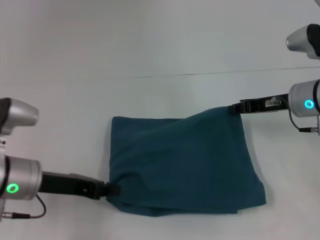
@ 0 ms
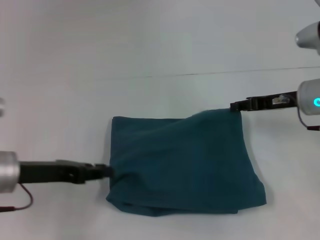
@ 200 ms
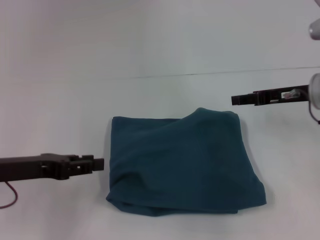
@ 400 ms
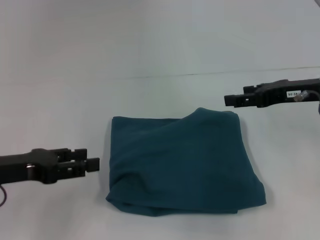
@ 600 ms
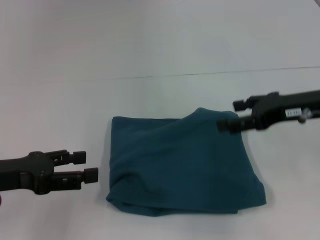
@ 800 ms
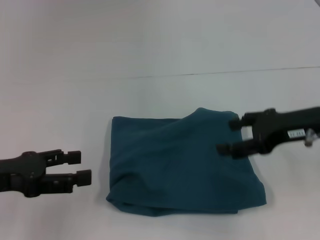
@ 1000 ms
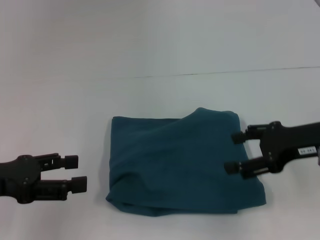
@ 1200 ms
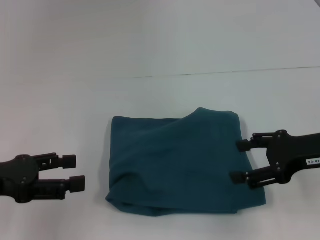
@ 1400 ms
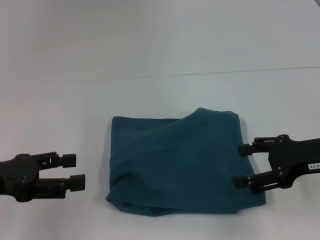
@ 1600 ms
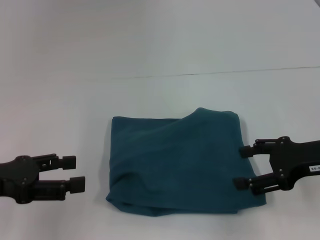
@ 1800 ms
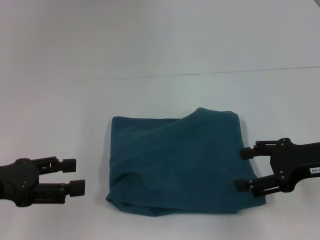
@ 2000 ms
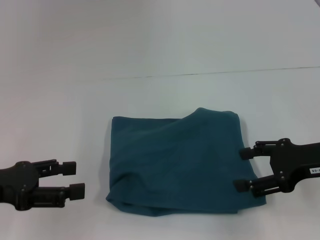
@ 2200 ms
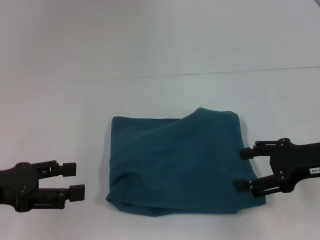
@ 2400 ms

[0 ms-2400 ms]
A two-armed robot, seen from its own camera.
0 ms to 1200 ms: The left gripper is displaced to the left by about 10 cm, and opens up. Meanwhile the right gripper is displaced backward by roughly 10 cm, and opens up.
1200 ms to 2400 ms: There are only small adjustments of the grippers.

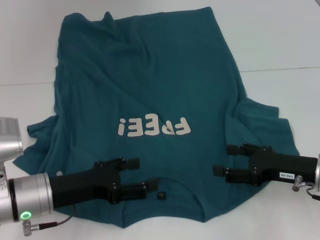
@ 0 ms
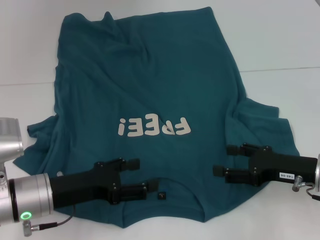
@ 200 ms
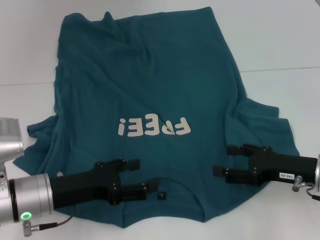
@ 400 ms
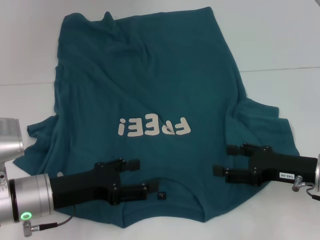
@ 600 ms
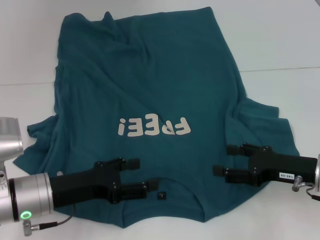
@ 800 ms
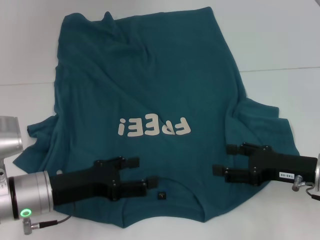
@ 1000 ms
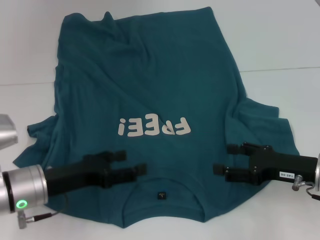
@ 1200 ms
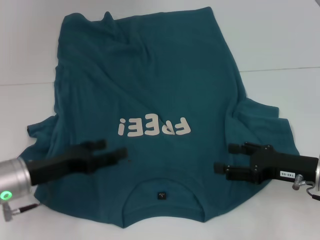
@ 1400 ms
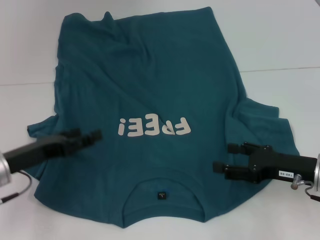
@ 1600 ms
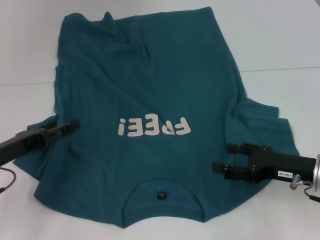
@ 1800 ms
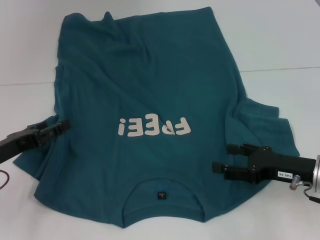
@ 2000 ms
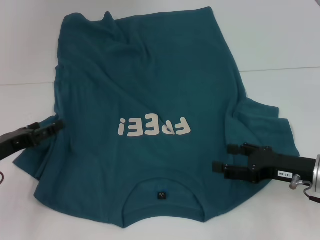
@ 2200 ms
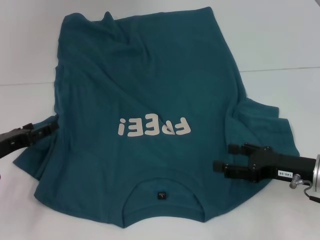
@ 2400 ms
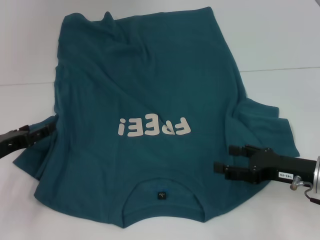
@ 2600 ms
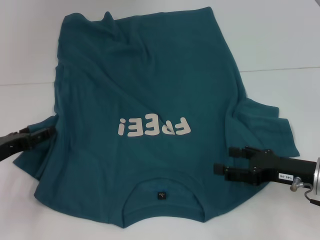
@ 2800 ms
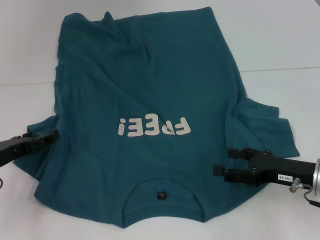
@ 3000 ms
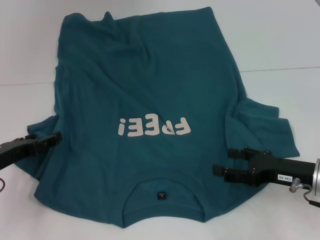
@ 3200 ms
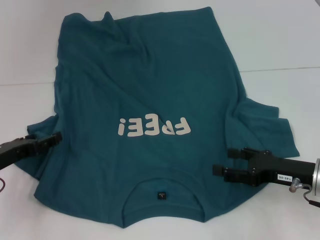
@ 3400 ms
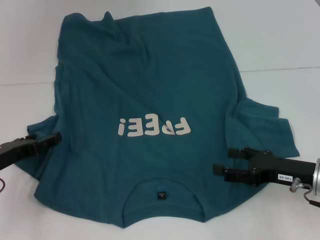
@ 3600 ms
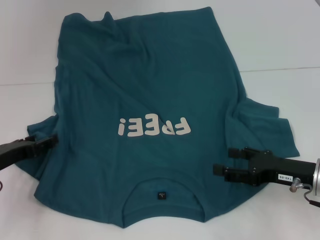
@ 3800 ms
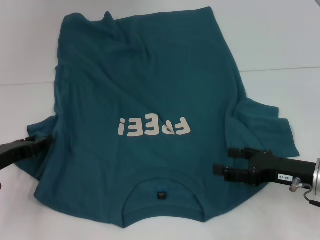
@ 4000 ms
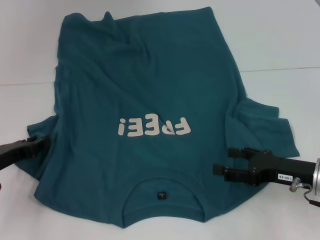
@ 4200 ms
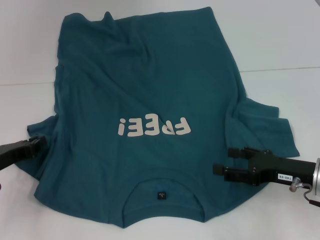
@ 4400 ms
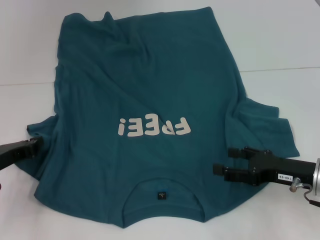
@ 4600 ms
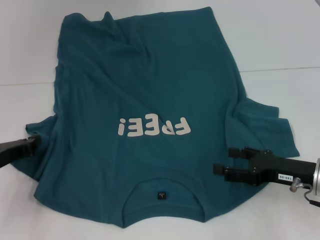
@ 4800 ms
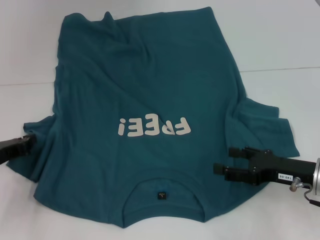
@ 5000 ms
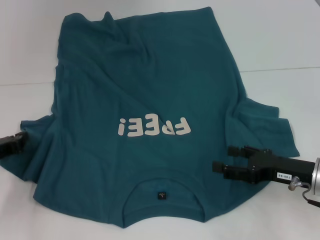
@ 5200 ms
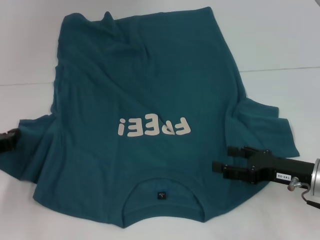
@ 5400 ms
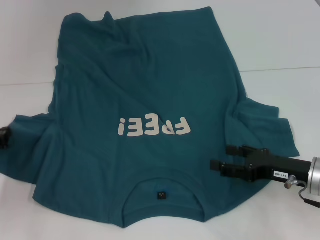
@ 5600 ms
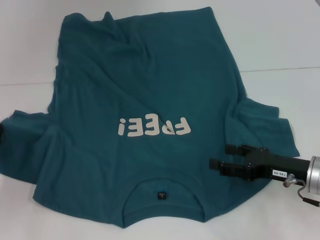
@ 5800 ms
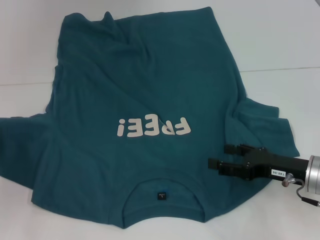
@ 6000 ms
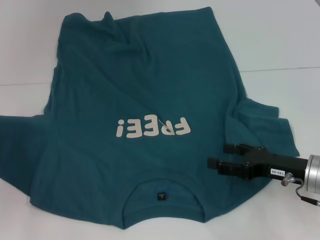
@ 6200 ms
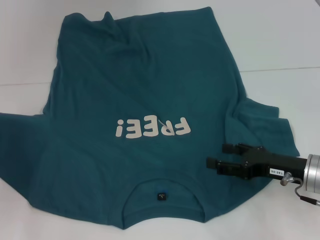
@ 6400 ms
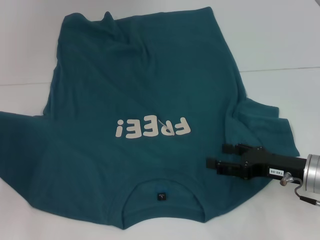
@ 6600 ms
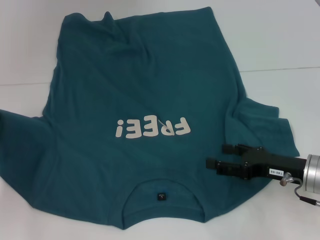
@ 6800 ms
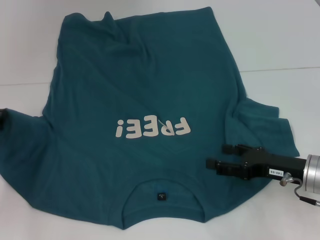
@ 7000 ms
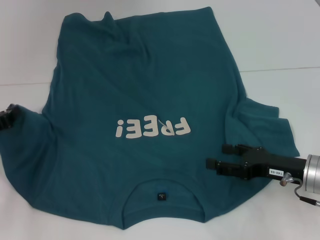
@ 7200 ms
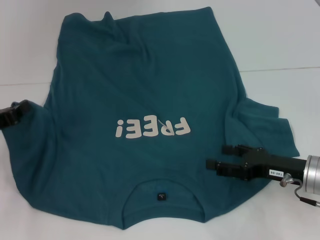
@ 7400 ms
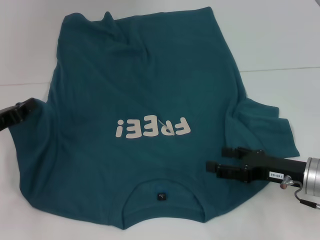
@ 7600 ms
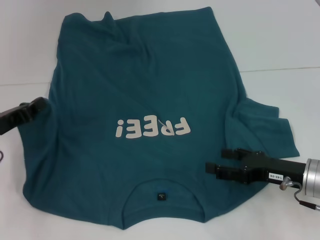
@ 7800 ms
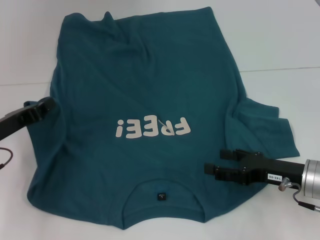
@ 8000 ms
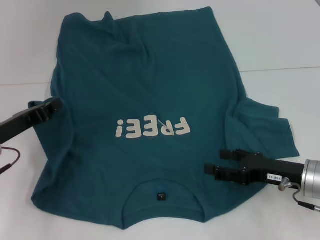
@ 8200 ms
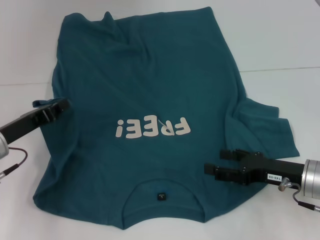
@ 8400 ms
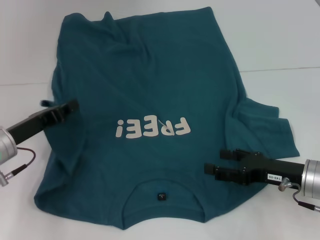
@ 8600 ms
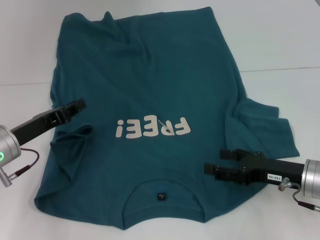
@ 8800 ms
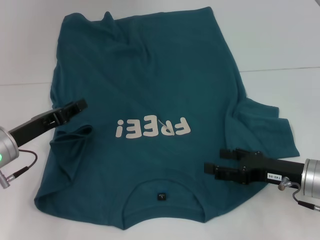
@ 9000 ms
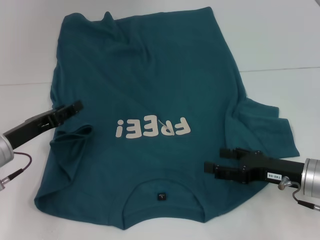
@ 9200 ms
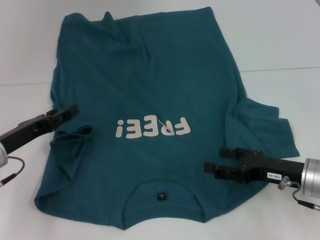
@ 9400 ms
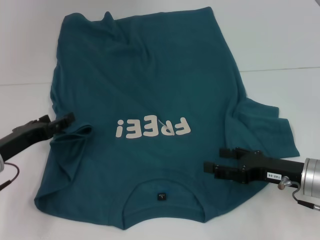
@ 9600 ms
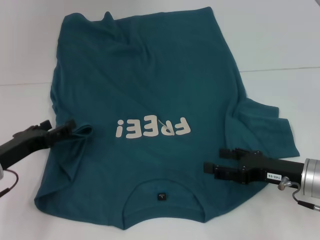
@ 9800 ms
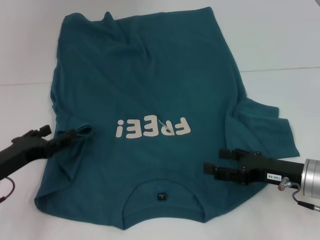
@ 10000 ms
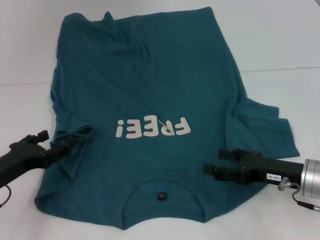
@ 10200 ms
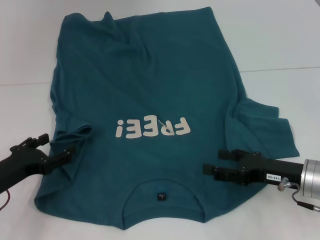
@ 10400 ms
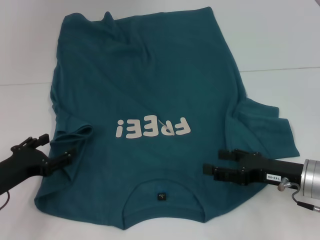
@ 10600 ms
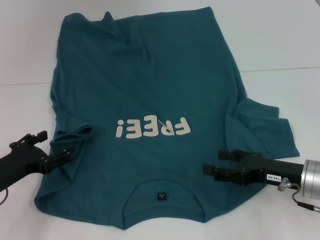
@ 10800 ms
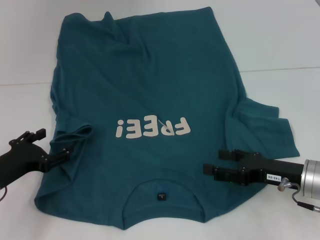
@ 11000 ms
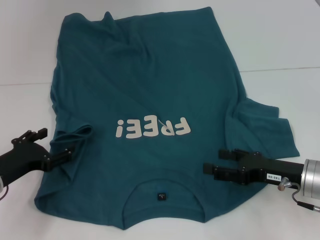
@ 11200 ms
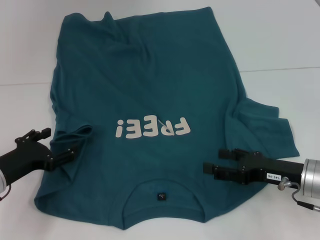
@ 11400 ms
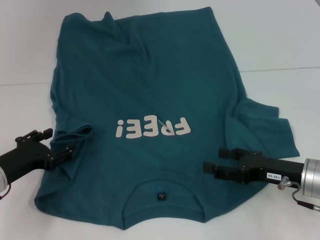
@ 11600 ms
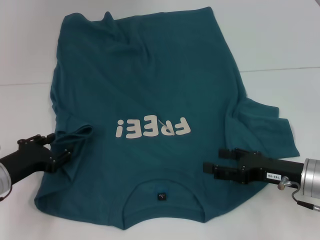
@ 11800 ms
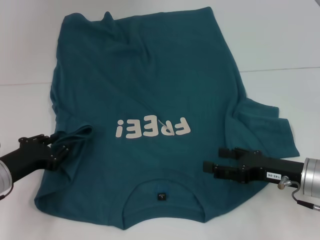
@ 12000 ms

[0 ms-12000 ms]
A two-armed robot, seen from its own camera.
0 ms to 1600 ms: The left gripper heads to the left, covering roughly 5 cm.
3000 ms to 4400 ms: The left gripper closes.
4400 ms to 6000 ms: The left gripper moves approximately 5 cm, and closes.
7600 ms to 9000 ms: The left gripper goes some 5 cm to the right.
9000 ms to 10400 ms: The left gripper shifts some 5 cm backward, and opens.
10400 ms to 12000 ms: The left gripper closes up.

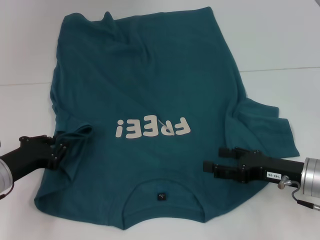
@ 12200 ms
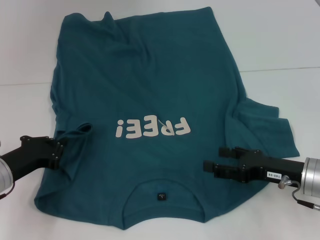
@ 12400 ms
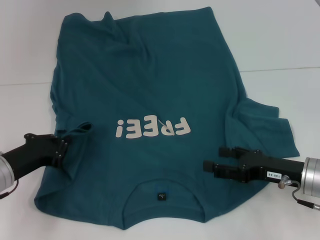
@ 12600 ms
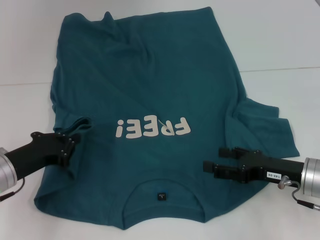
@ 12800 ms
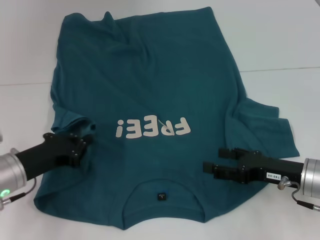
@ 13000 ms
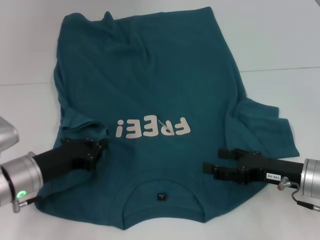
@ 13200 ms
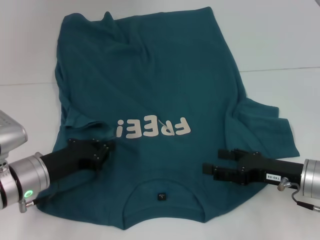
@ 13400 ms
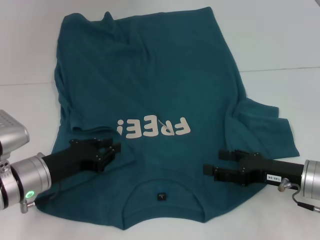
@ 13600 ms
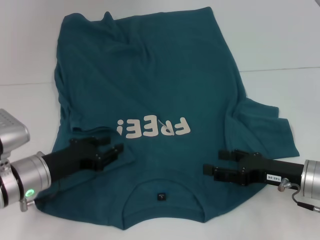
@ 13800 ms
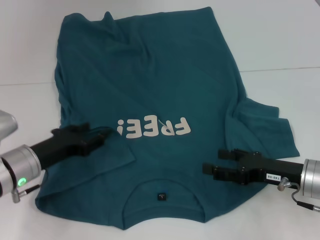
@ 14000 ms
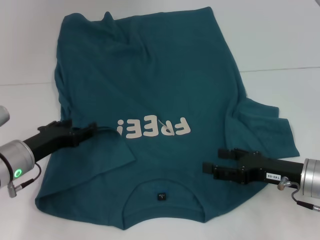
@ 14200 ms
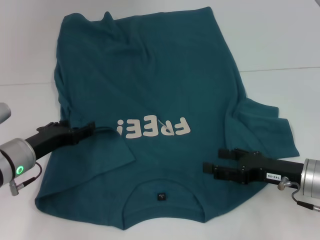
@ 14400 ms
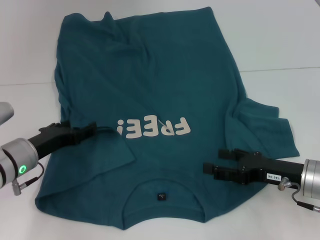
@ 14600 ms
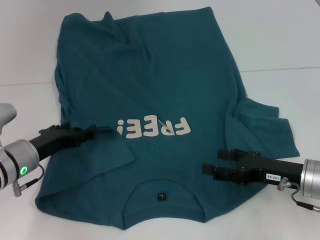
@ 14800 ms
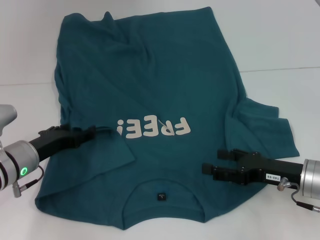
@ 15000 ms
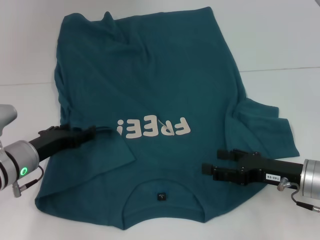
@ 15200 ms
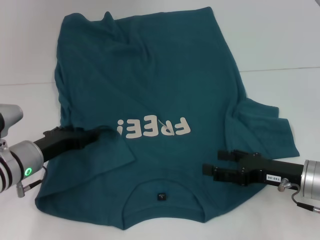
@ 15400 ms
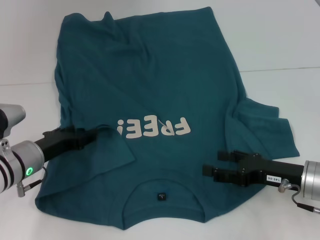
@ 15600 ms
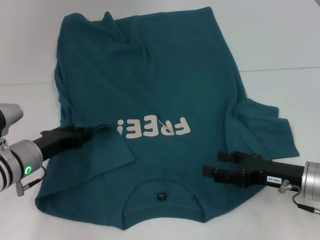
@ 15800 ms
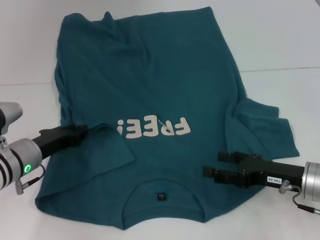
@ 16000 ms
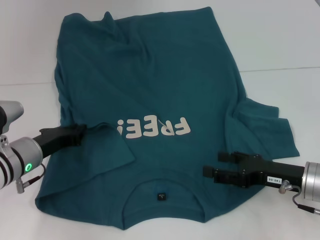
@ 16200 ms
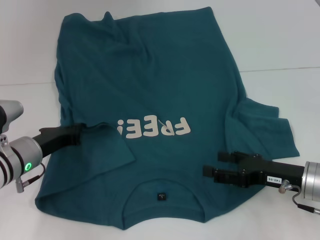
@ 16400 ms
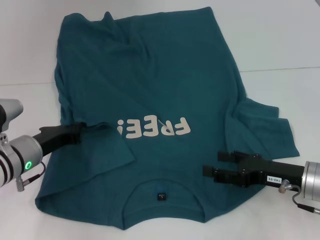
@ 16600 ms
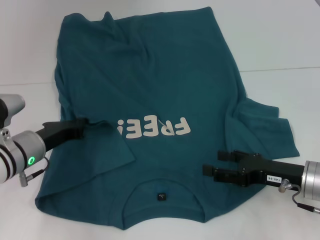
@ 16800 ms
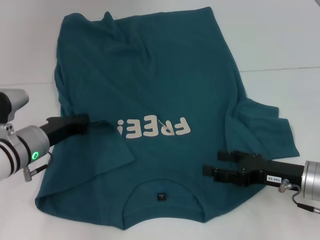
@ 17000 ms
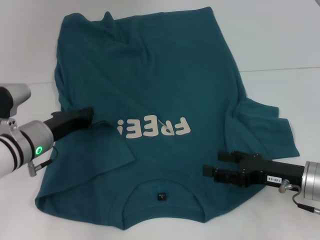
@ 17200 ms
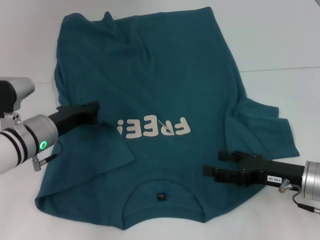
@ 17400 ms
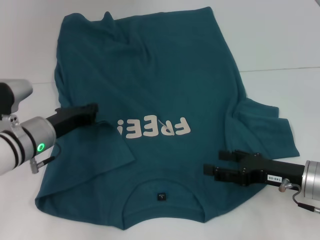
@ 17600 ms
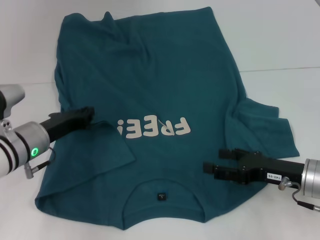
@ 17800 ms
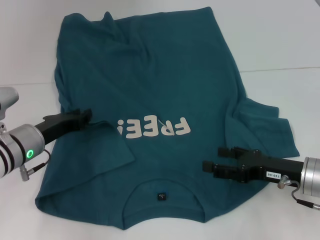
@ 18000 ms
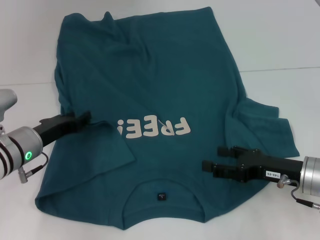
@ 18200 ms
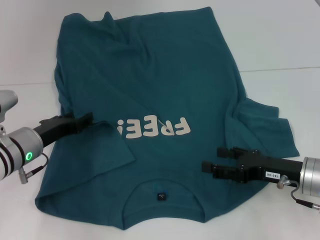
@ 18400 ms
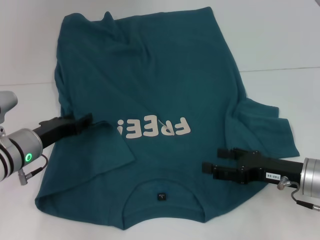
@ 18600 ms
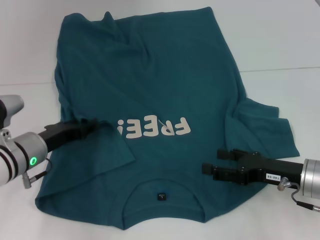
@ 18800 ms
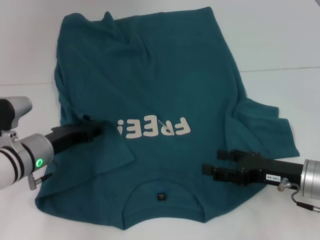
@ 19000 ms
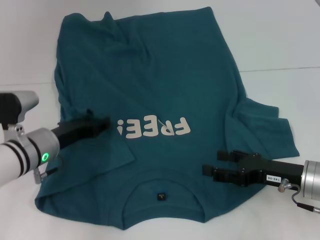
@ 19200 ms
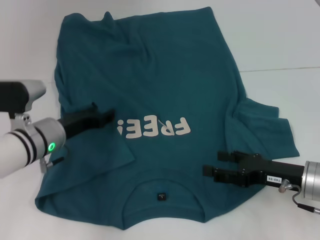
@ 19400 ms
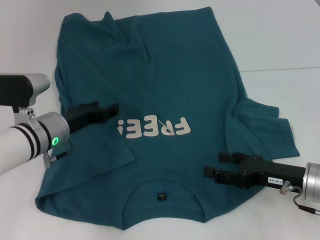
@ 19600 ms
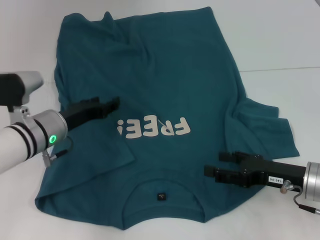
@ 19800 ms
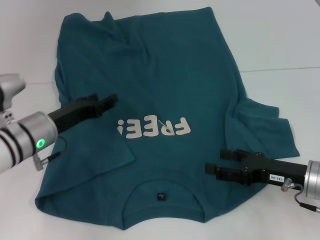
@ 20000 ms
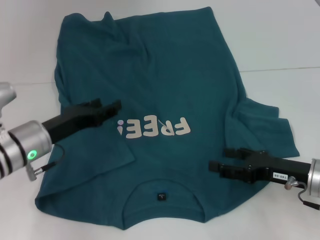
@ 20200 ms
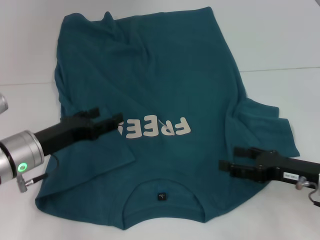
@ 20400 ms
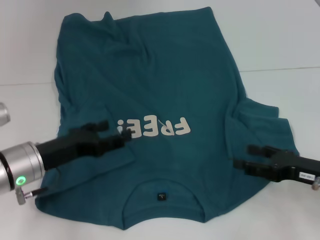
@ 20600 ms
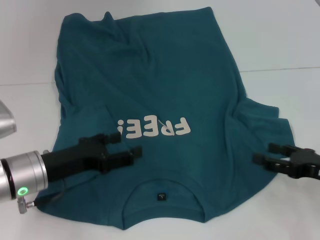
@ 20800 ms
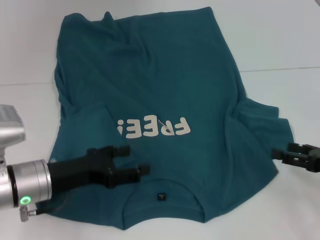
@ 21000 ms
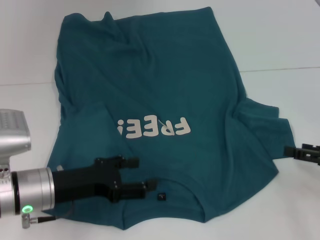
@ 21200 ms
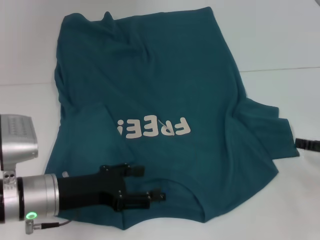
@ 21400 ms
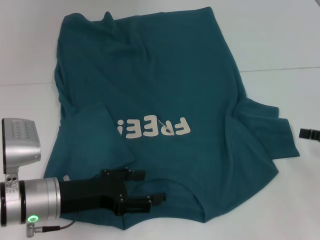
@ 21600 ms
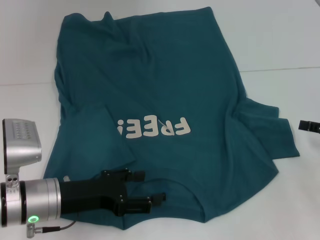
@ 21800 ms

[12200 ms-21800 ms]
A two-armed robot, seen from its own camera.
Step, 12200 ms to 19400 ms: Fold the bottom left sleeve with your left hand.
12200 ms to 13800 ms: The left gripper goes about 5 cm to the right.
13800 ms to 15400 ms: The left gripper opens.
15400 ms to 17000 ms: The left gripper closes its fingers.
17000 ms to 18600 ms: The left gripper opens its fingers.
18600 ms to 20200 ms: The grippers make only small movements.
20200 ms to 21800 ms: The left gripper moves backward, about 5 cm; the right gripper shifts roughly 10 cm to the right.
